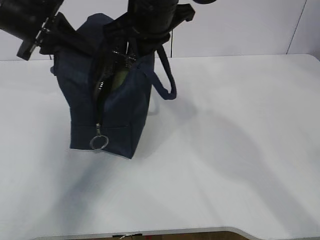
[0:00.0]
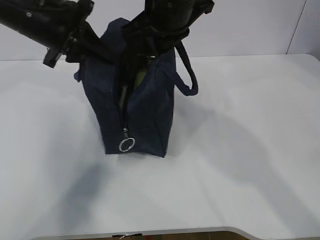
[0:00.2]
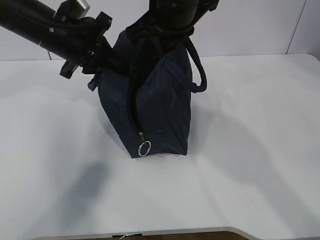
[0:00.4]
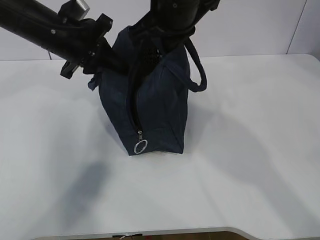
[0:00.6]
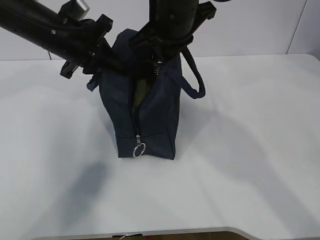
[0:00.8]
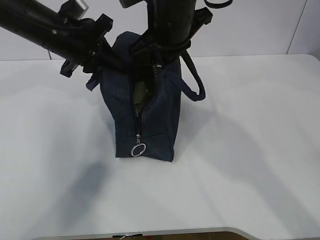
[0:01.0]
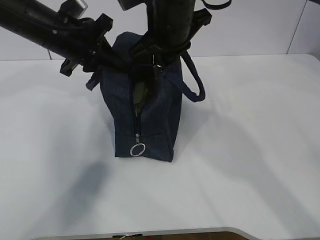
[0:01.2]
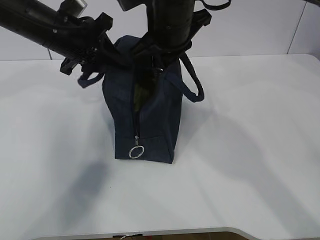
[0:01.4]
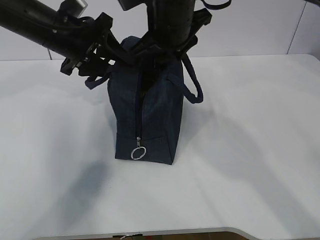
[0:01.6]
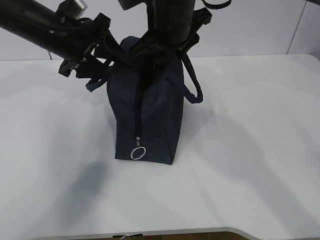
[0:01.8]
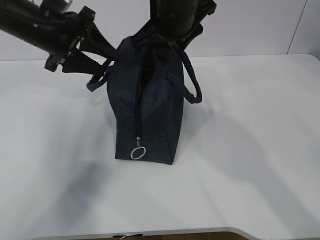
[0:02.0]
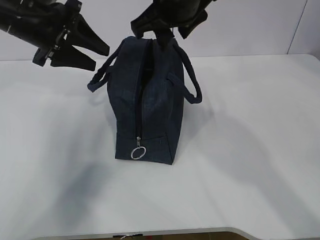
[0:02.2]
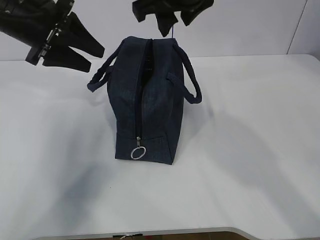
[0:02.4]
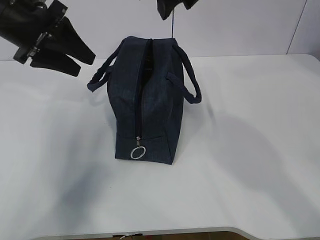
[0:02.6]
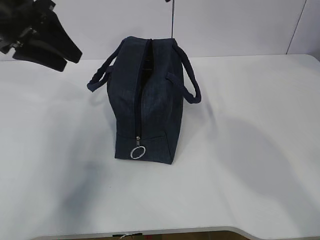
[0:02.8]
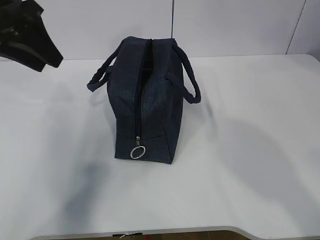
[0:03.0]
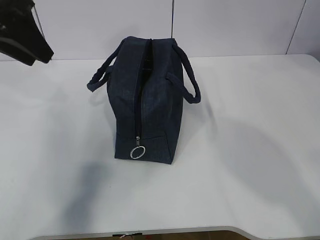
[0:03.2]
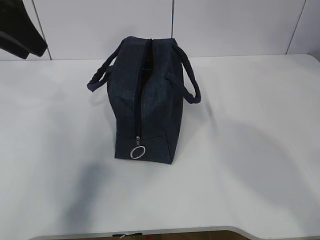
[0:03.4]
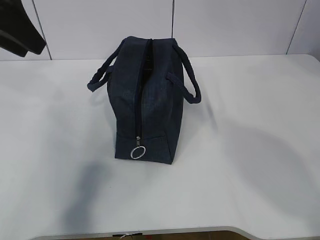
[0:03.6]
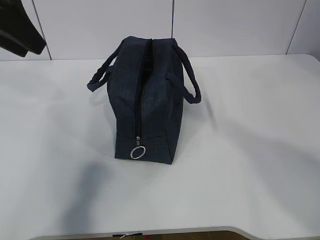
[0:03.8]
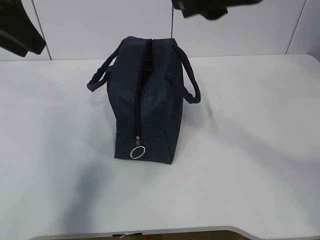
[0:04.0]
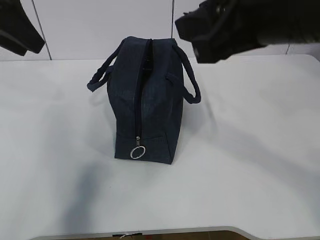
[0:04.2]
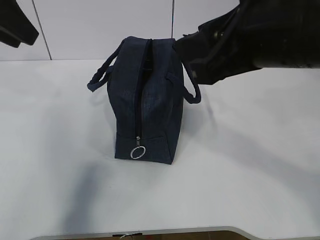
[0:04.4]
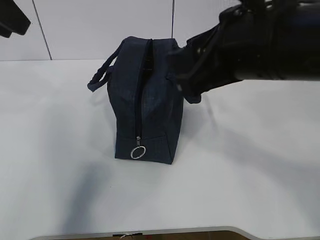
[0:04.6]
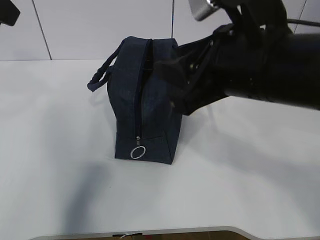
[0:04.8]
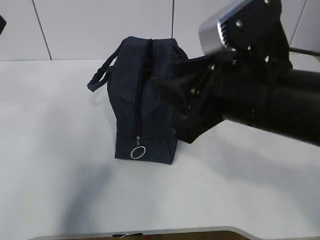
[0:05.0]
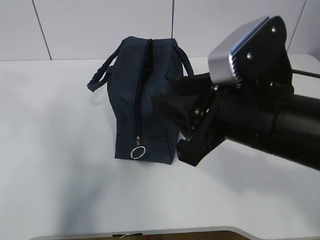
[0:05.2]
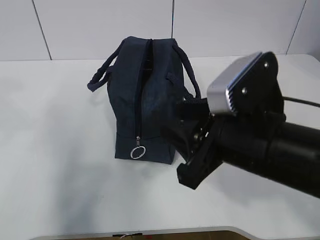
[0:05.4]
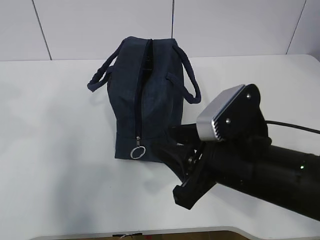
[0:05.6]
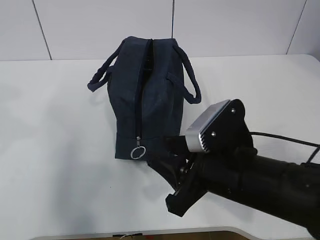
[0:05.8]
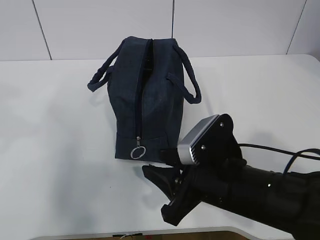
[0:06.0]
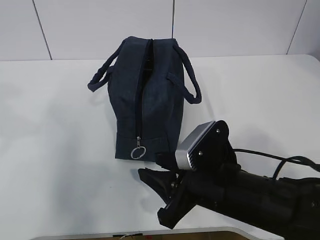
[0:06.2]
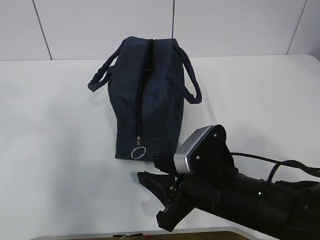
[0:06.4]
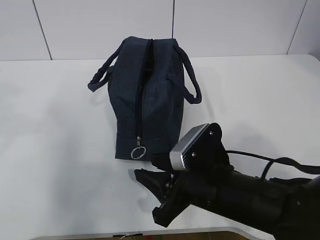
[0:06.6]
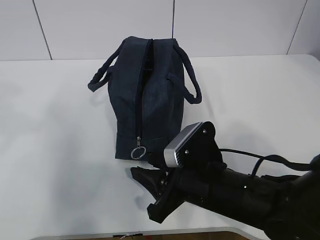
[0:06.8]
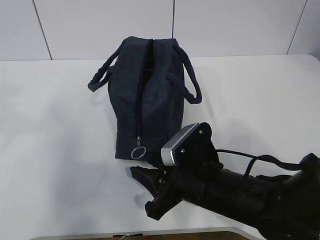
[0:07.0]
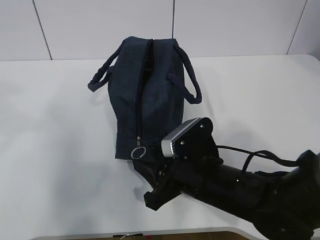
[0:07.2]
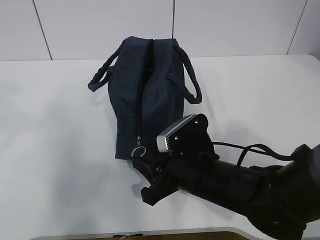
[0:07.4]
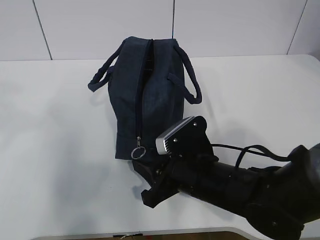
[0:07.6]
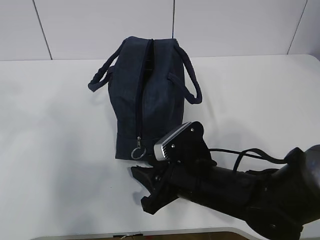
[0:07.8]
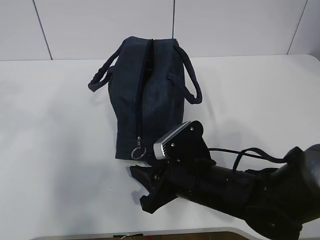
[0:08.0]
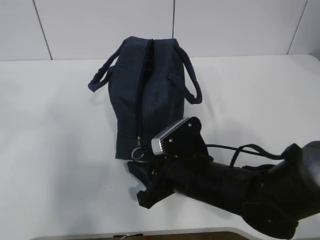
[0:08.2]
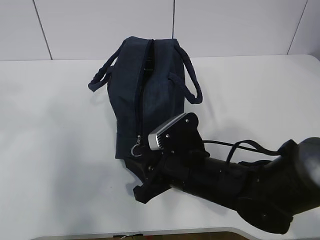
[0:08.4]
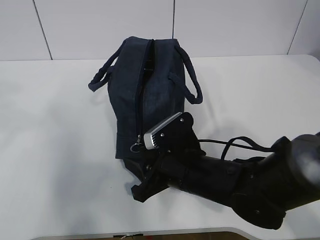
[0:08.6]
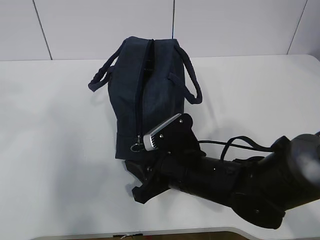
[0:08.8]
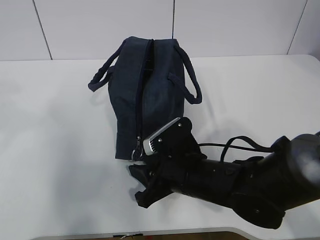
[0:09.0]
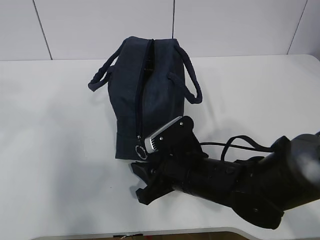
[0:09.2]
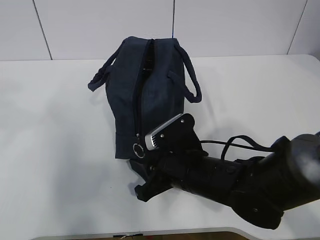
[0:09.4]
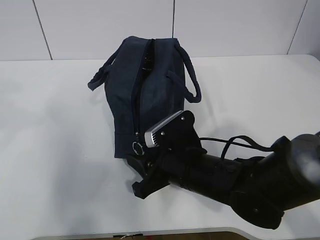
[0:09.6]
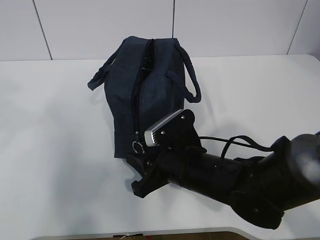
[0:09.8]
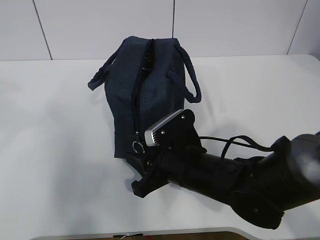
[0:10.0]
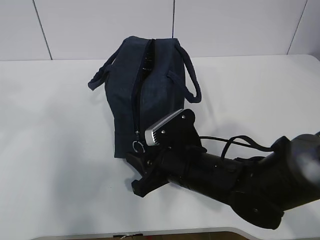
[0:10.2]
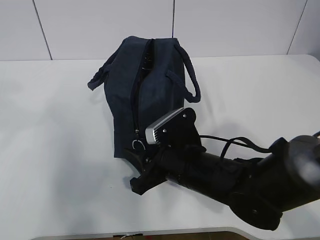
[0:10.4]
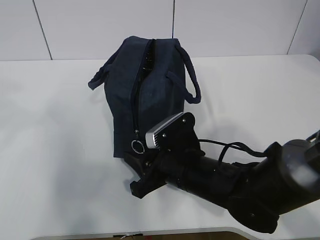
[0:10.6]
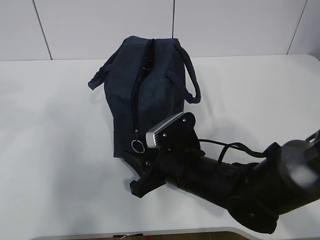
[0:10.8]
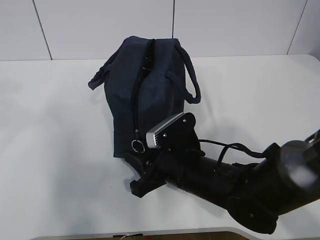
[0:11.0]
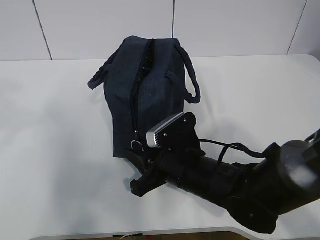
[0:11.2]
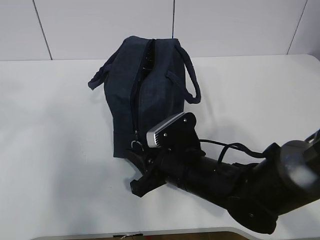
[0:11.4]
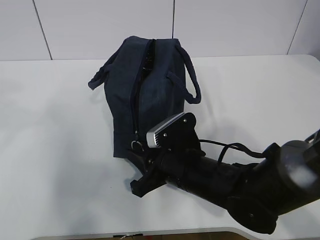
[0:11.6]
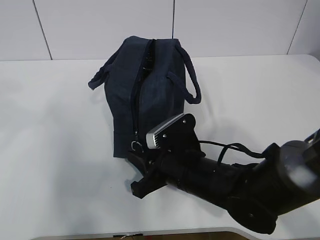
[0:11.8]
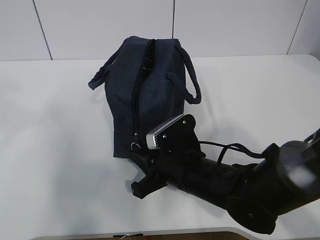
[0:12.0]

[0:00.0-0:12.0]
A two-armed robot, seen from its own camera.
0:00.0 to 0:01.6: The left gripper is displaced to the right by about 5 cm, and opens up. Meanwhile the right gripper opens its fingers.
0:01.6 to 0:03.0: The right gripper moves upward and backward, some 15 cm, while the left gripper travels upward, to the left and backward by about 10 cm.
0:03.0 to 0:04.4: The right gripper shifts about 15 cm backward and downward. The left gripper changes place by approximately 5 cm.
0:04.4 to 0:06.0: The left gripper goes about 15 cm backward; the right gripper heads downward, covering roughly 20 cm.
0:06.0 to 0:07.6: The right gripper moves some 5 cm.
0:07.6 to 0:10.4: The grippers make only small movements.
0:10.4 to 0:12.0: Both grippers stay about where they are.

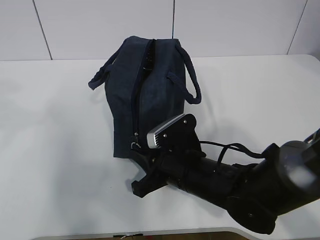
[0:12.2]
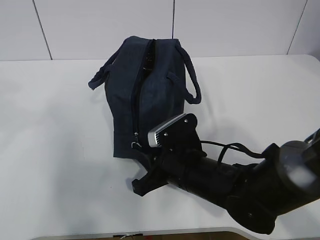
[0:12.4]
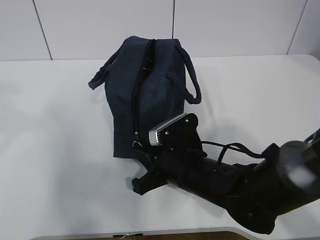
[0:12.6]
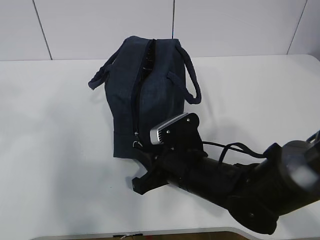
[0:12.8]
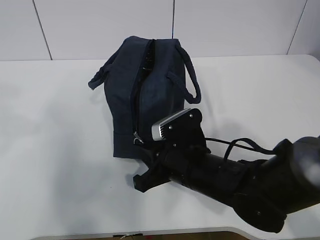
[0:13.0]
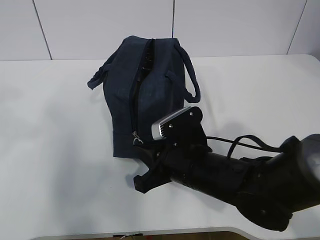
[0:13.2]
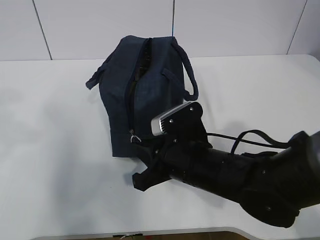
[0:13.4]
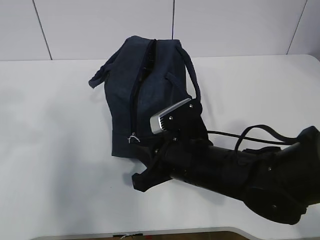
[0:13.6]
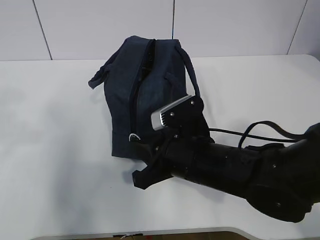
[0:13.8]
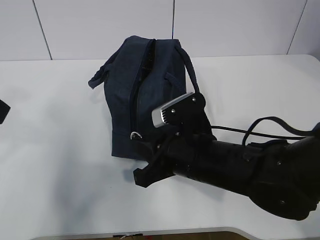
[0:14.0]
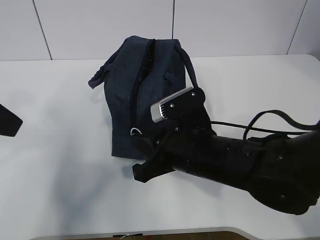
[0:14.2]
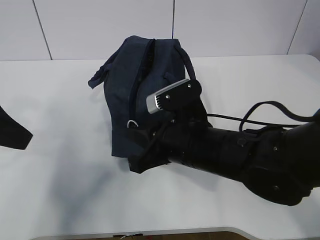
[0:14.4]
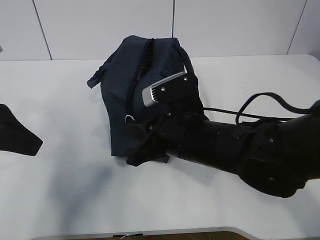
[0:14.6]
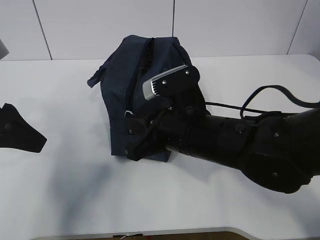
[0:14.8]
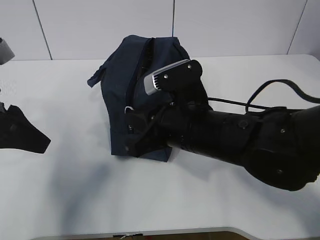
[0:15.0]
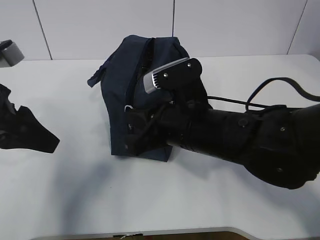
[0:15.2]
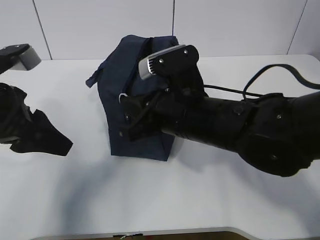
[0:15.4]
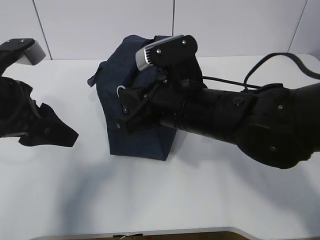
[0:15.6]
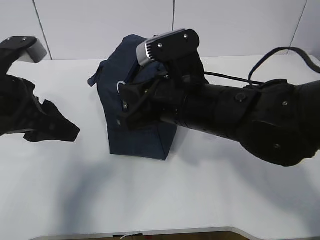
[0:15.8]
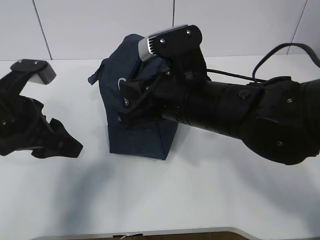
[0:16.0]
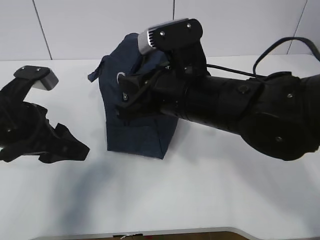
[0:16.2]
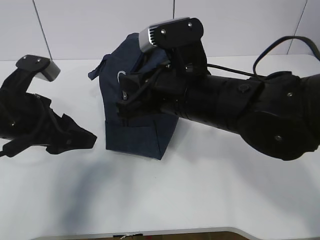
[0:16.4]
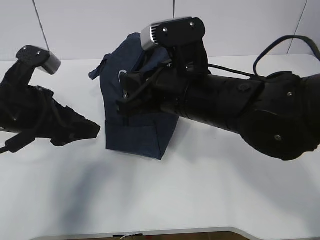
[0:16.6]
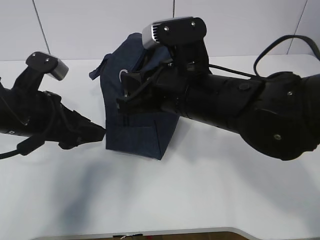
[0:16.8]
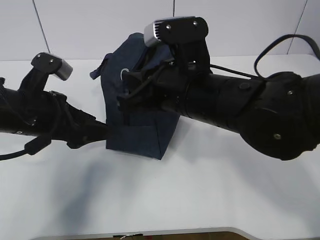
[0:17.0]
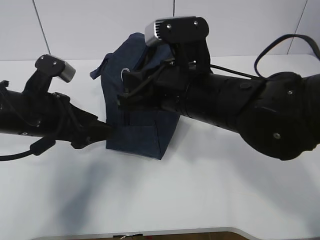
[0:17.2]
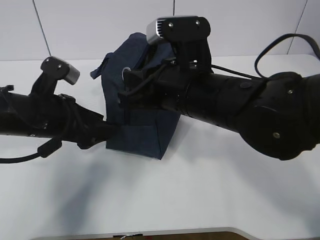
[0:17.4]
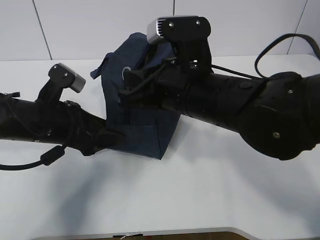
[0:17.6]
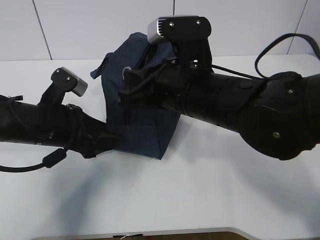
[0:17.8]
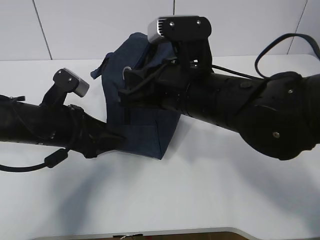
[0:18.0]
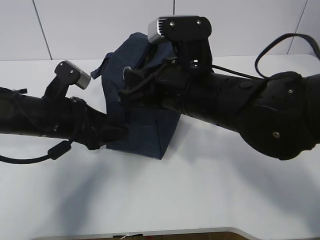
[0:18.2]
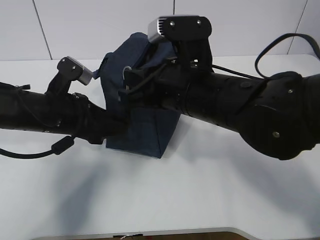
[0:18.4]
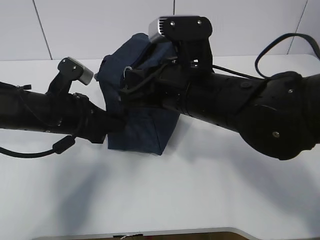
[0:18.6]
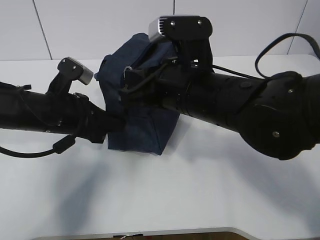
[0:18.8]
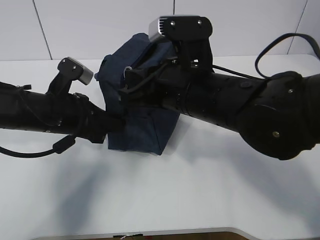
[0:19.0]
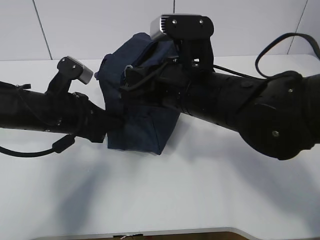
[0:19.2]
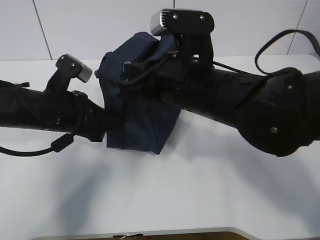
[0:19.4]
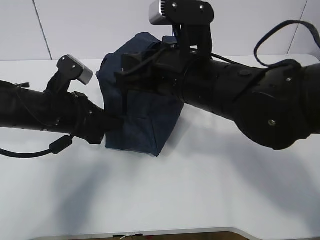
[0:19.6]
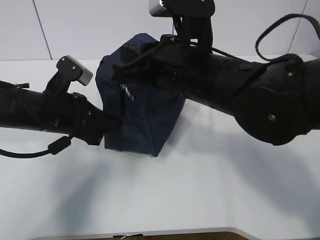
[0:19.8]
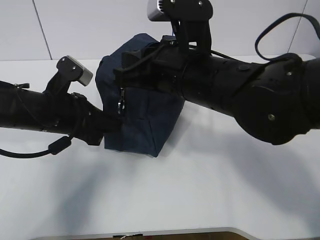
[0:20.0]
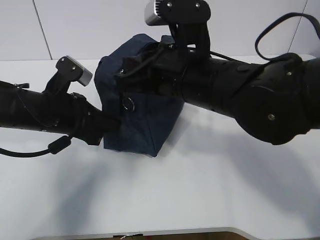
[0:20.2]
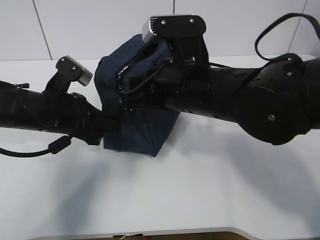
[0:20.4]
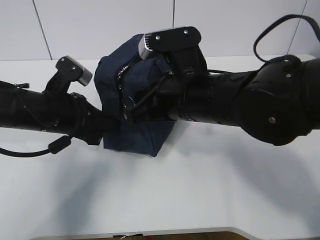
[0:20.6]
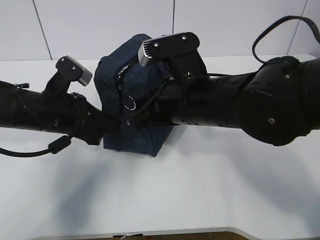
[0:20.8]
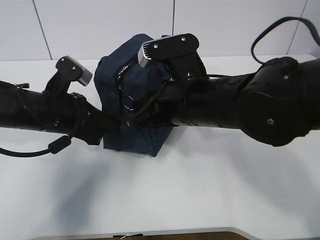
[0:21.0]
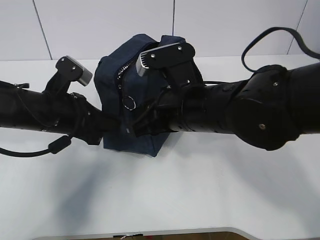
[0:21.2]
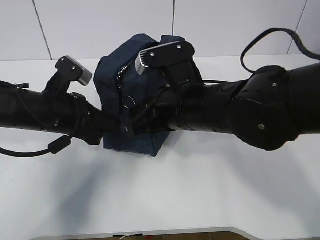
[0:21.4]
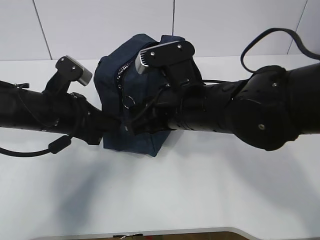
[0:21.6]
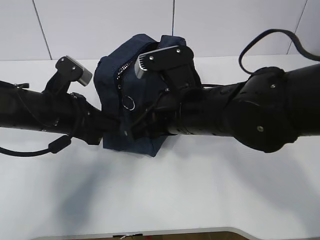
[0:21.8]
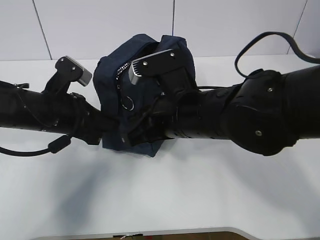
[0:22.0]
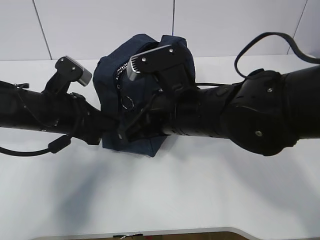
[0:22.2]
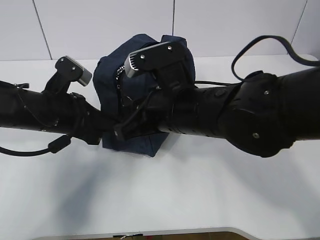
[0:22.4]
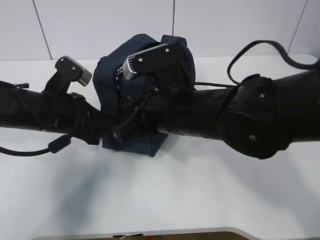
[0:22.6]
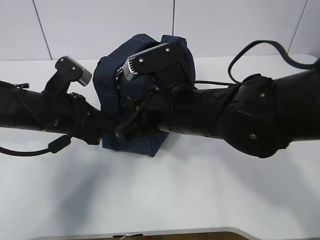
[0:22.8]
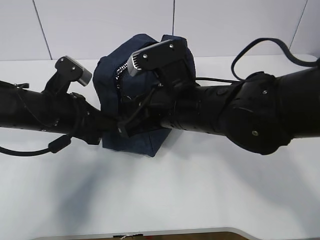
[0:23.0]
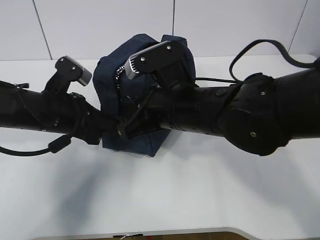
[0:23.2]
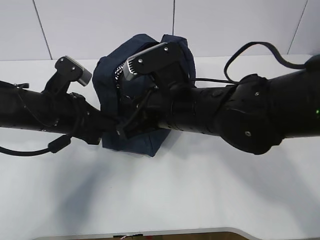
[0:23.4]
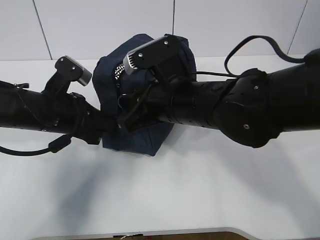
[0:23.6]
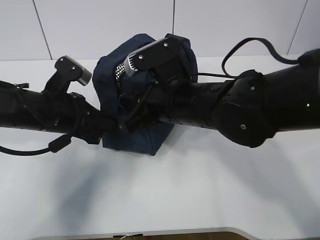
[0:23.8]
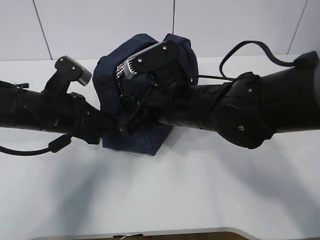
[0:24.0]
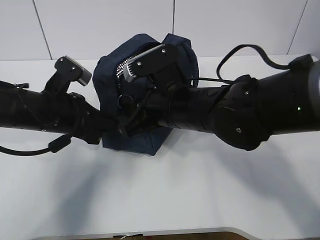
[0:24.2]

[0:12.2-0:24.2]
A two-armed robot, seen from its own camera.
Step, 0:12.2 to 0:19.6: Grab the lunch bag with your left hand.
0:12.2 to 0:13.8: The grippers move only a little.
0:13.8 to 0:15.2: The left gripper is displaced downward and forward by roughly 10 cm; the right gripper moves some 5 cm.
0:15.2 to 0:16.6: The left gripper shifts by roughly 5 cm.
0:16.6 to 0:18.2: The left gripper moves downward, some 5 cm.
0:18.2 to 0:19.8: The left gripper closes.
0:19.8 to 0:21.2: The right gripper opens up.
0:21.2 to 0:24.2: There are only small adjustments of the grippers.
